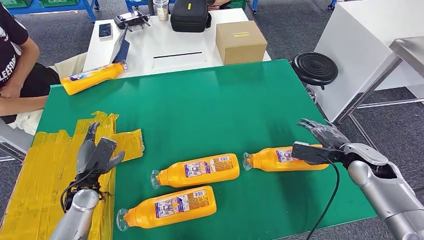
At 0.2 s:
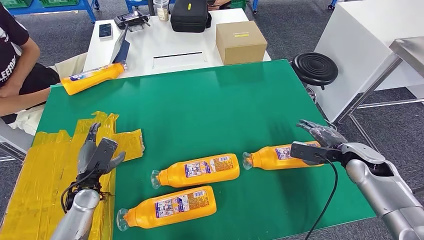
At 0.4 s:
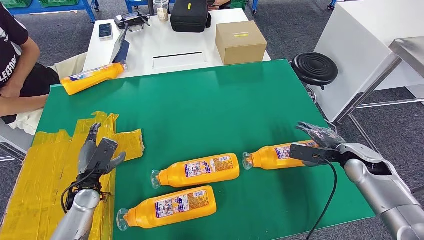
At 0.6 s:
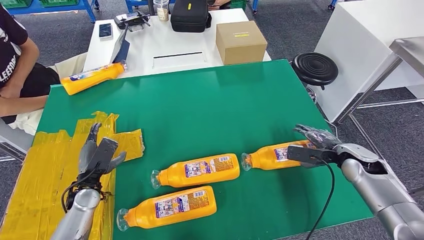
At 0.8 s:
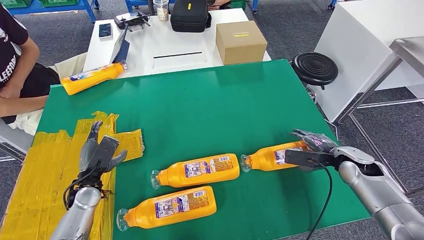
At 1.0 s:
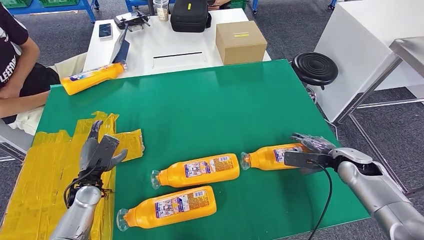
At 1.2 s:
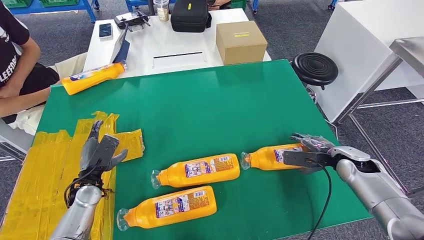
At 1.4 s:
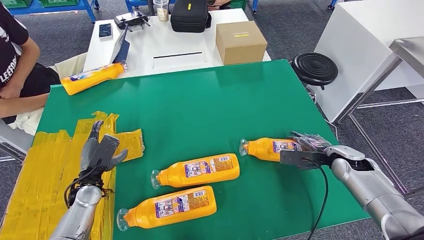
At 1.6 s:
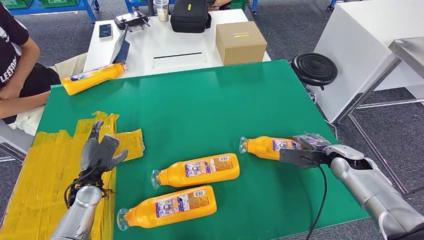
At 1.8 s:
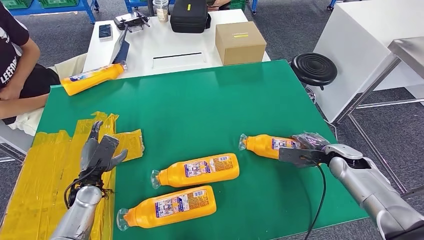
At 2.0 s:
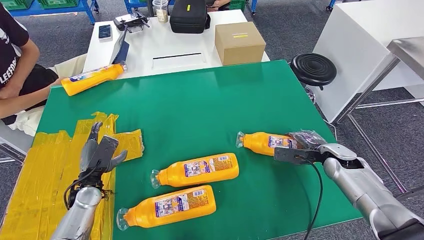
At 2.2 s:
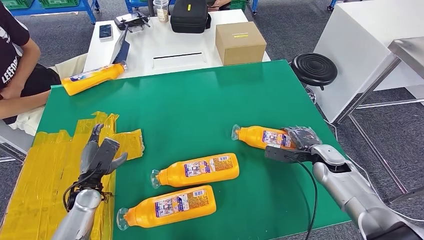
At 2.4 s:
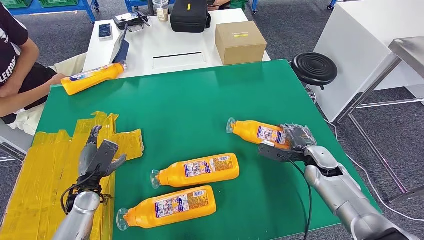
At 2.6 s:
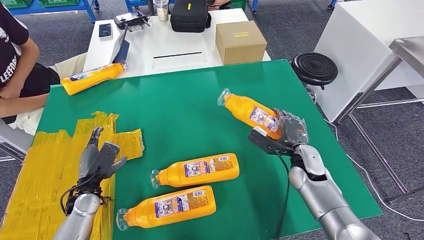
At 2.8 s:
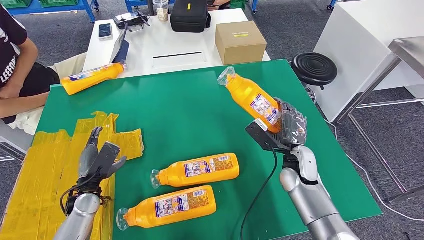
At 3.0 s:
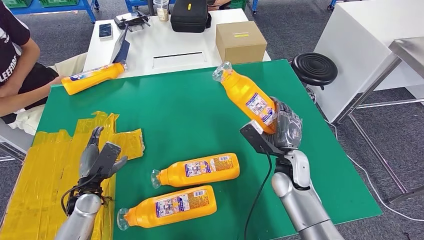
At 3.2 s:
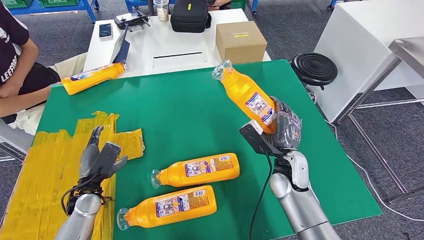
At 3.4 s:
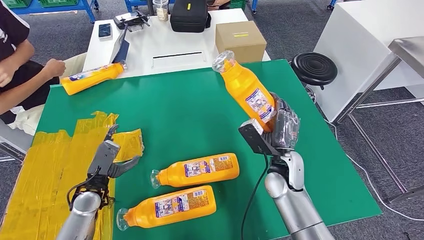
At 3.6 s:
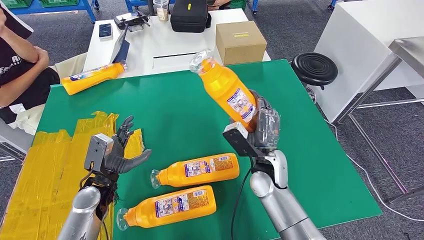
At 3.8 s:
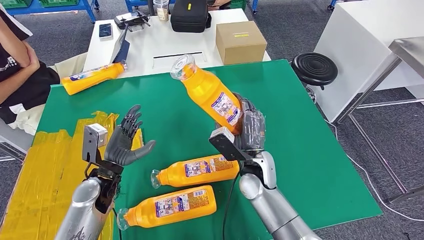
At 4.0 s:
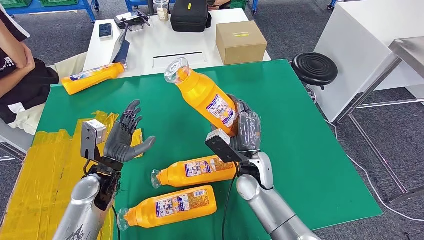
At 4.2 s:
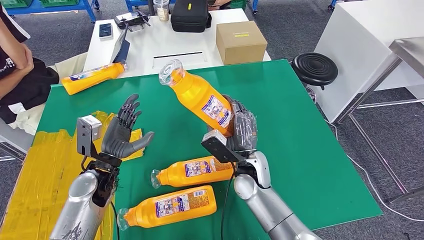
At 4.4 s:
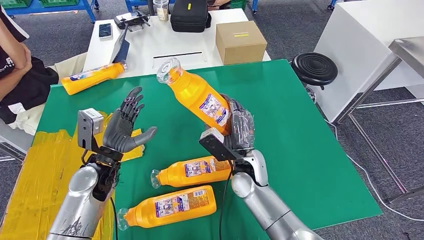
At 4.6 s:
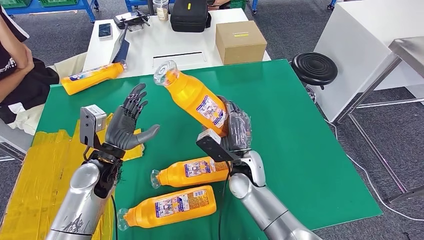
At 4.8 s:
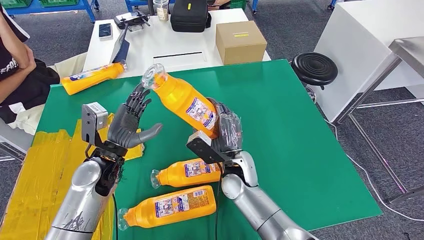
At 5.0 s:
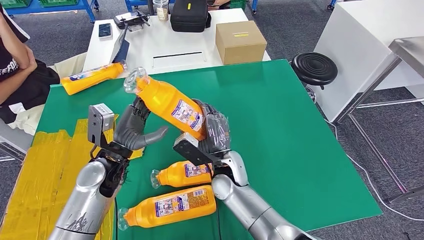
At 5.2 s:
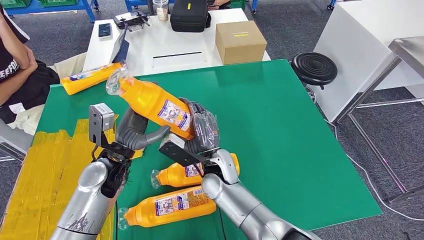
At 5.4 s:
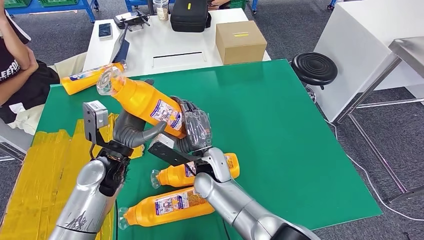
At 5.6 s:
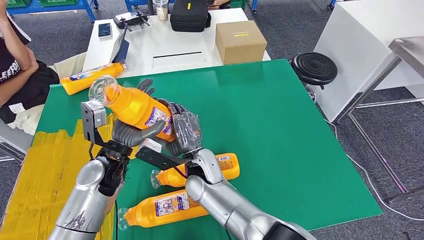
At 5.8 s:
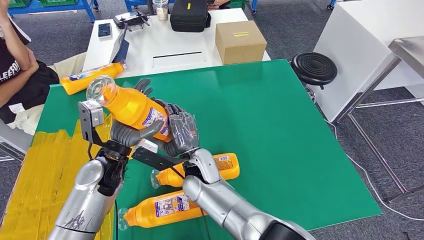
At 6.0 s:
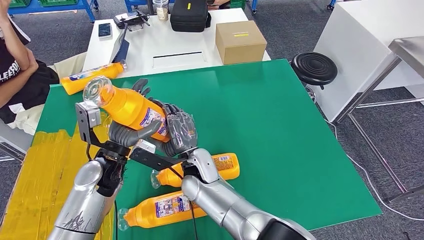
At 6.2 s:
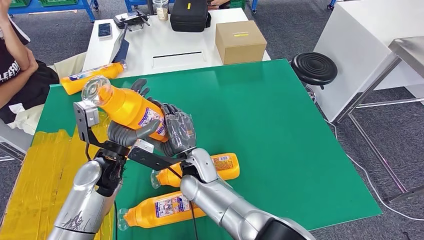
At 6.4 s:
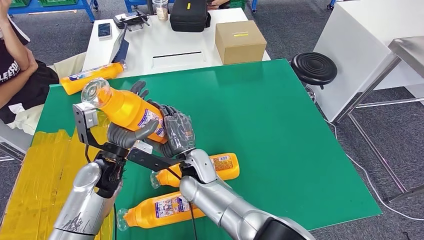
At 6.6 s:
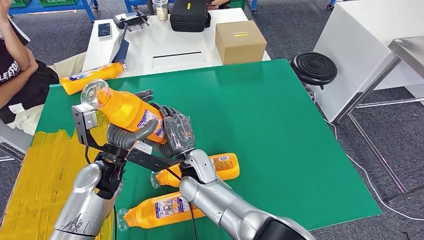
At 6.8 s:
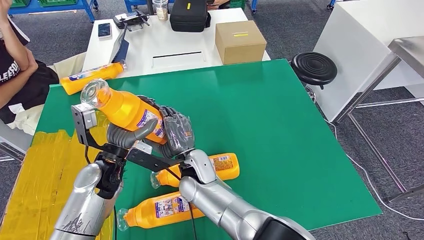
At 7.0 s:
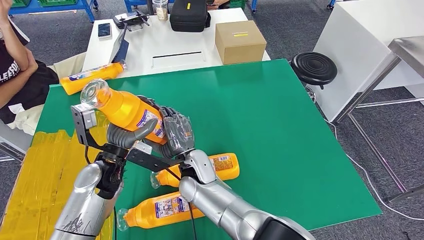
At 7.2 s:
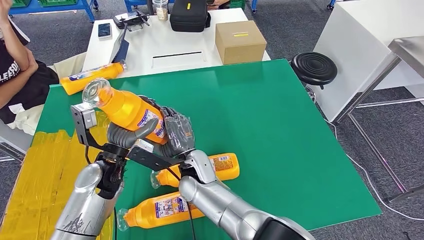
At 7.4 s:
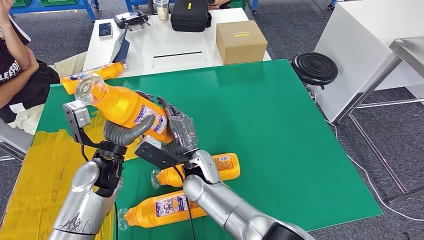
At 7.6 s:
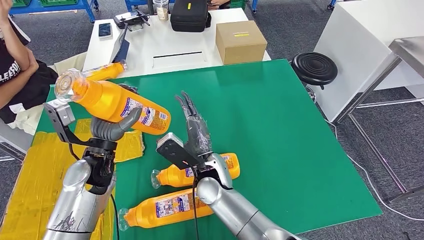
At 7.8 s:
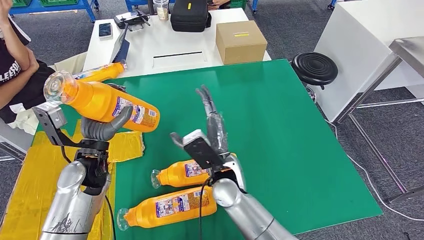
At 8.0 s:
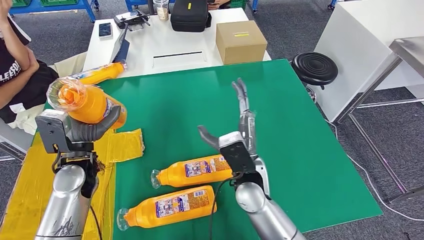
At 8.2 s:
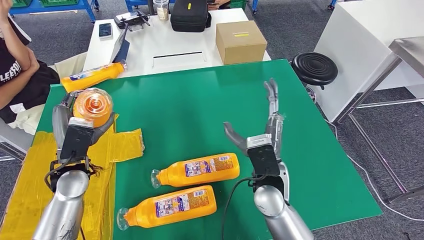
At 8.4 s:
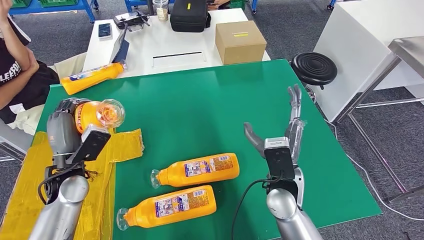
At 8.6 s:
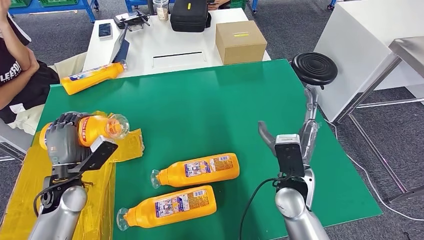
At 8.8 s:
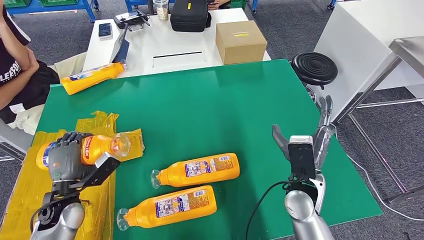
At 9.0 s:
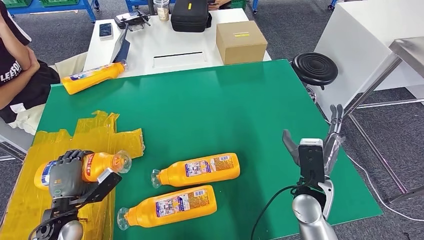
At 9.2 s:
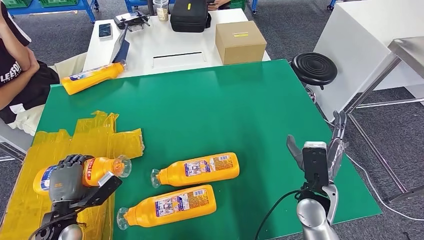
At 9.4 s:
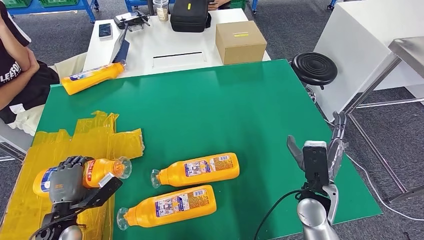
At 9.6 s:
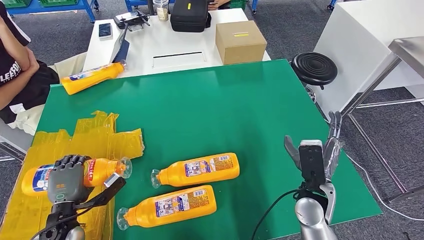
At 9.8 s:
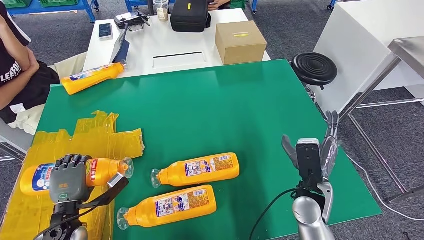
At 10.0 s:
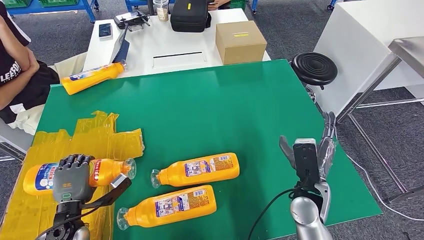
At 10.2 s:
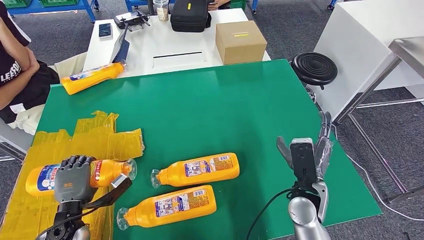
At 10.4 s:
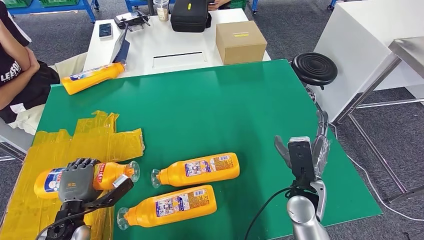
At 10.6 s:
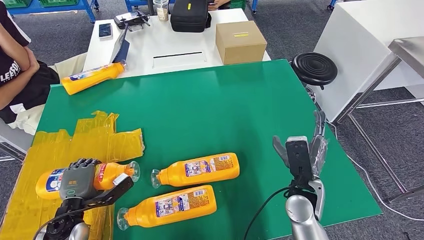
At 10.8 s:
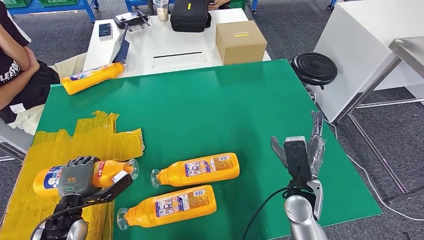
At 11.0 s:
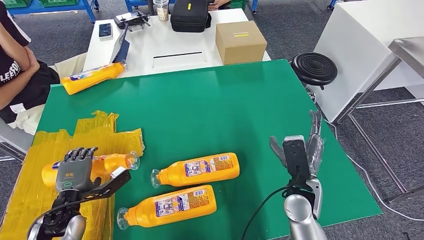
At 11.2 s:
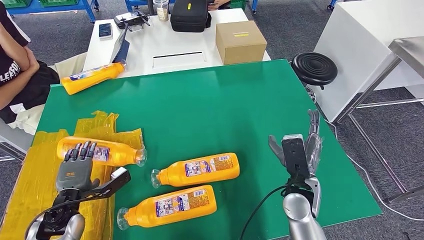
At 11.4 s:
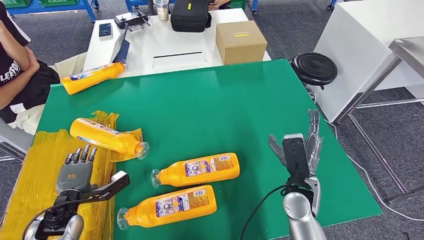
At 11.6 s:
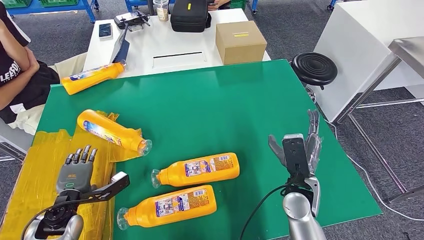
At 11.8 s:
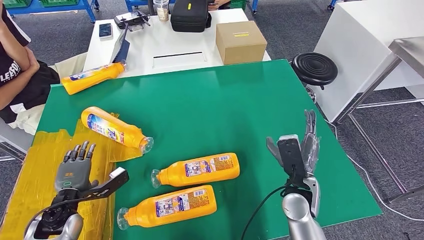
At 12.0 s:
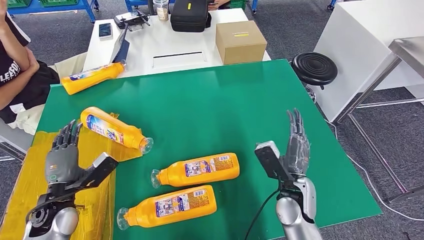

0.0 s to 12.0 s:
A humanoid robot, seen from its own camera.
Step, 0.0 to 2.8 s: Pick up the fast-moving consumer goods bottle from the table.
0.0 to 1.6 s: The right hand shifts by about 5 cm.
1.6 to 3.0 s: The right hand travels to the left by some 20 cm.
6.0 to 7.6 s: There are only small adjustments of the hands.
9.0 to 10.4 s: The hands make only small movements.
10.4 to 12.0 s: The left hand moves some 5 cm.

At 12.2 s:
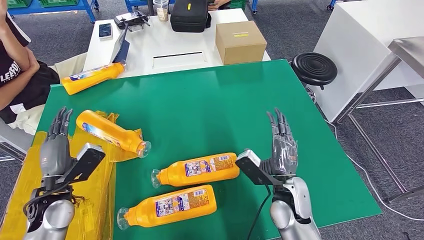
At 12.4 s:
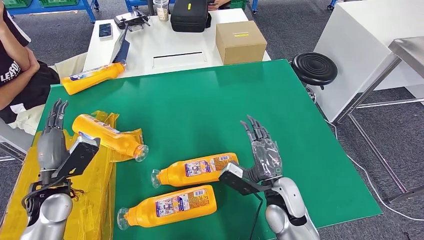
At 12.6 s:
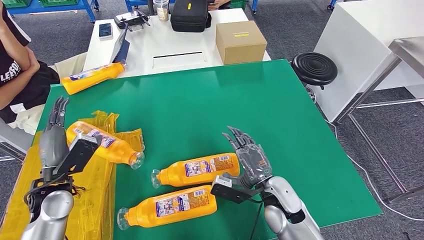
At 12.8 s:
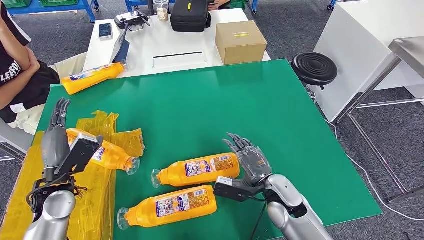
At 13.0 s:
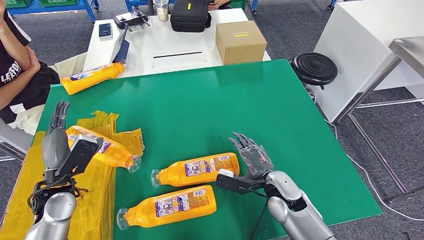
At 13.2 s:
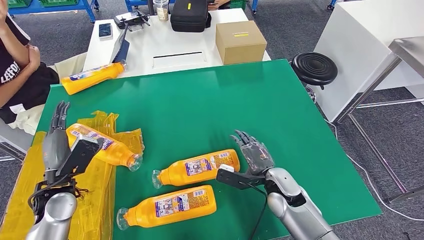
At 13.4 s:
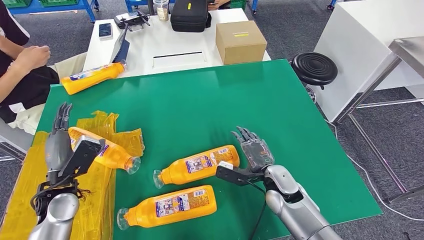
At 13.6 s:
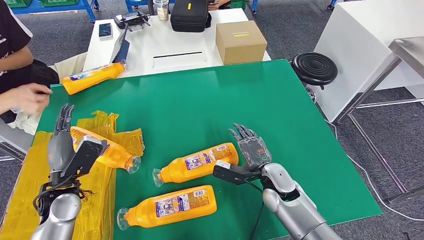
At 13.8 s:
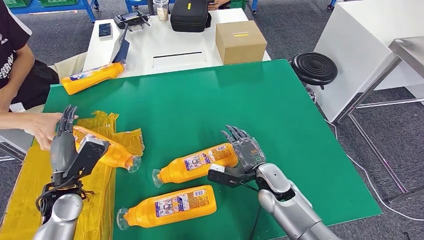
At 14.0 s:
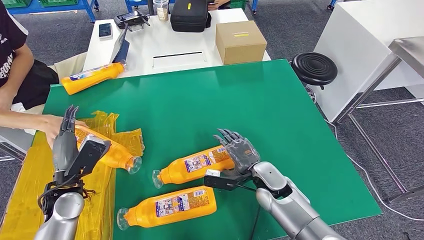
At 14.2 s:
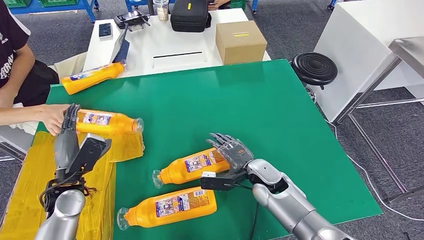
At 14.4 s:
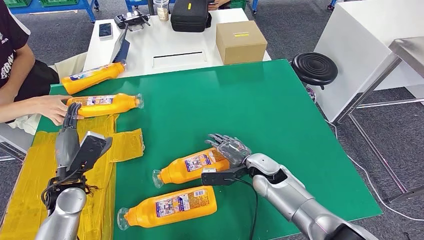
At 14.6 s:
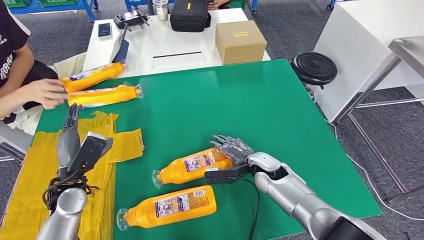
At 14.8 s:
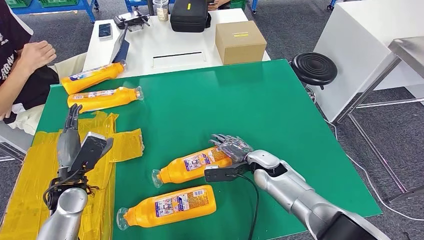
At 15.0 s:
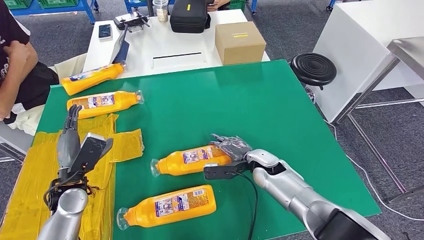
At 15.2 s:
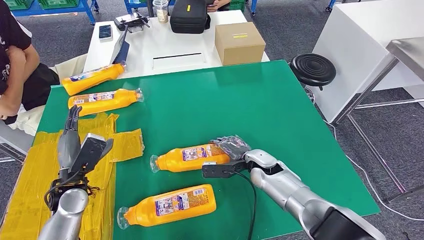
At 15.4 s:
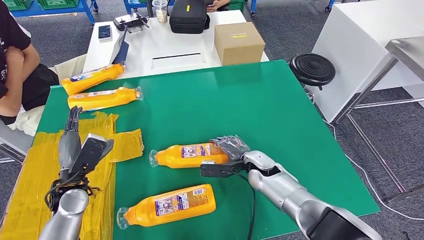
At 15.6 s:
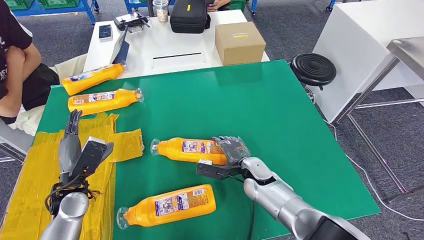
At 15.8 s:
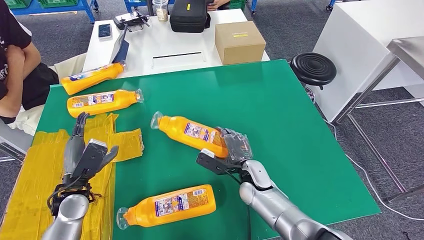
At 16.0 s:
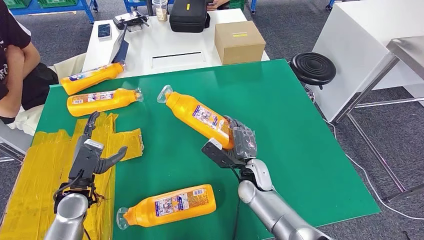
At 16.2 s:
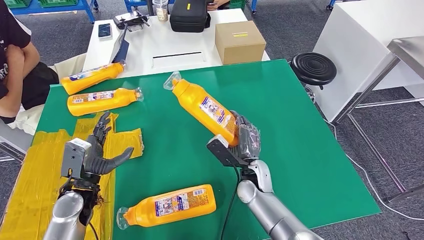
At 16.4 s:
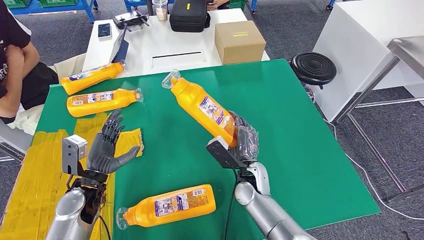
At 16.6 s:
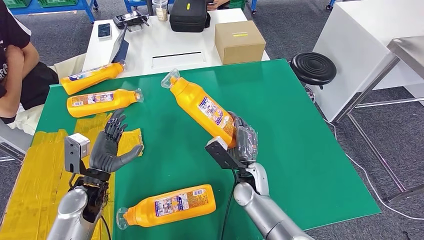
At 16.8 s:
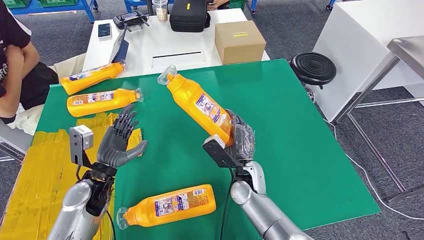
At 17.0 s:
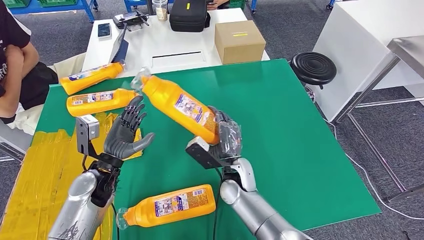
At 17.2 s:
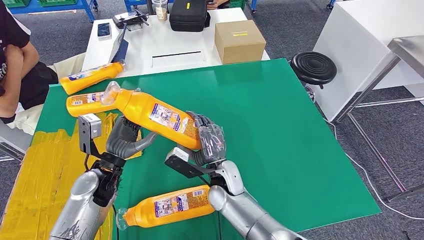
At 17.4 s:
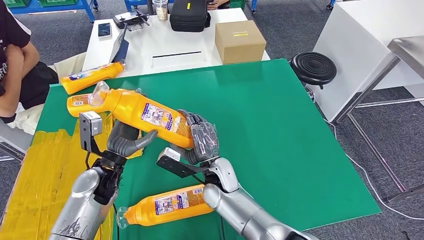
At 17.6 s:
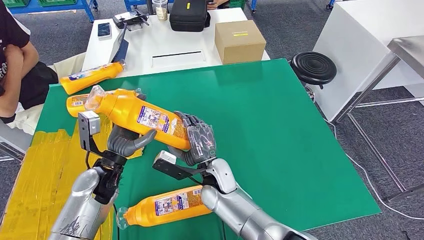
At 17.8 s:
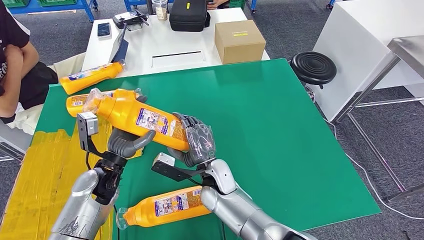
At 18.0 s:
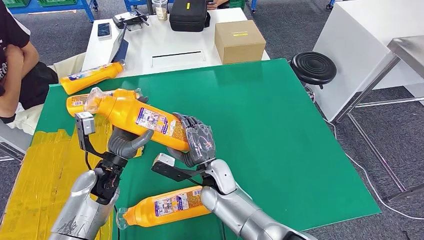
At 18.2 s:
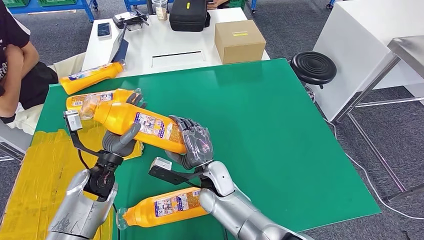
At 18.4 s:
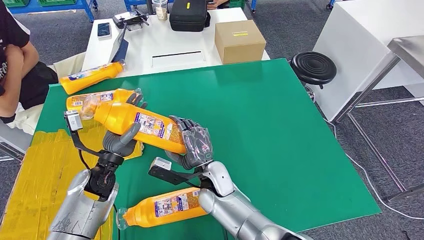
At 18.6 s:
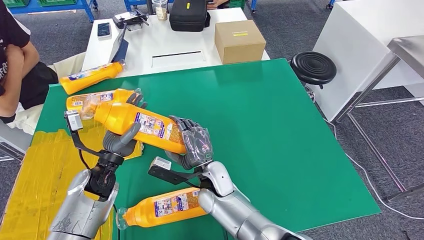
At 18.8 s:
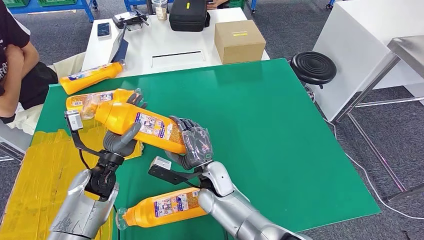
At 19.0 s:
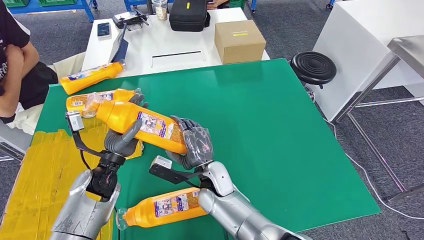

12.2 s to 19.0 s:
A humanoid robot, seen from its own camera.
12.2 to 13.6 s: The right hand changes place by about 5 cm.
13.6 to 15.0 s: The right hand is displaced forward by about 5 cm.
